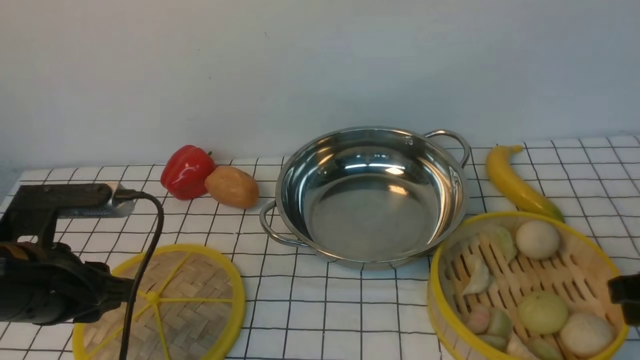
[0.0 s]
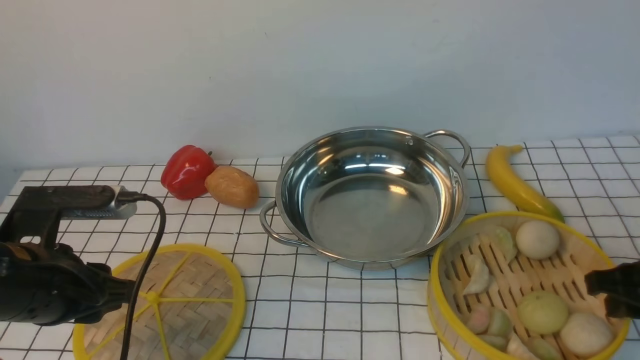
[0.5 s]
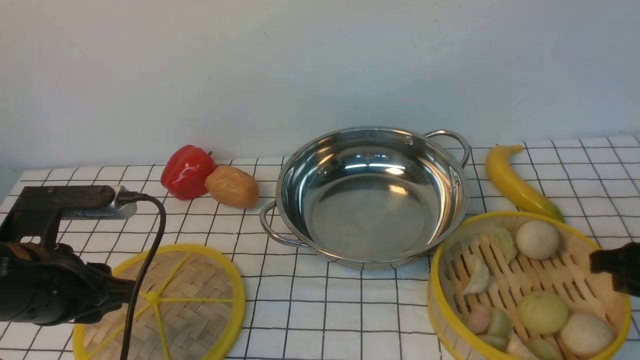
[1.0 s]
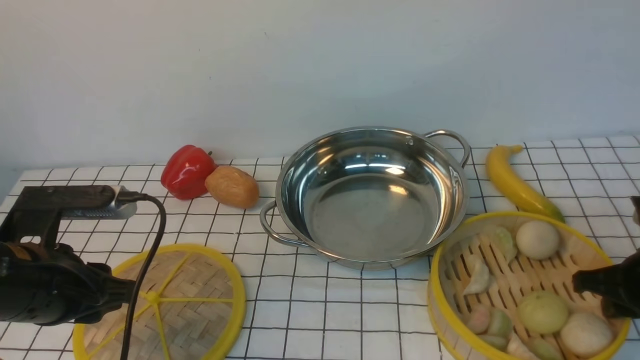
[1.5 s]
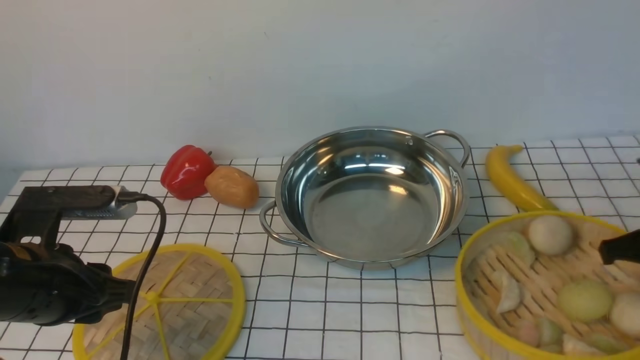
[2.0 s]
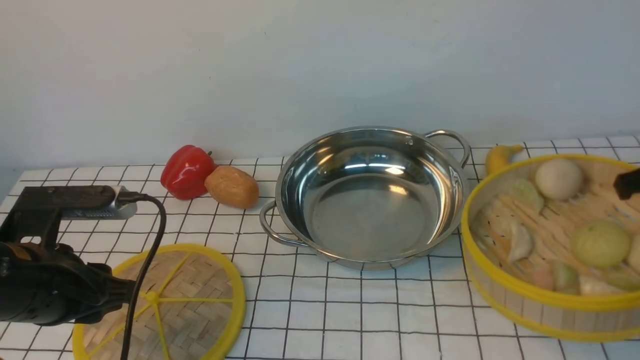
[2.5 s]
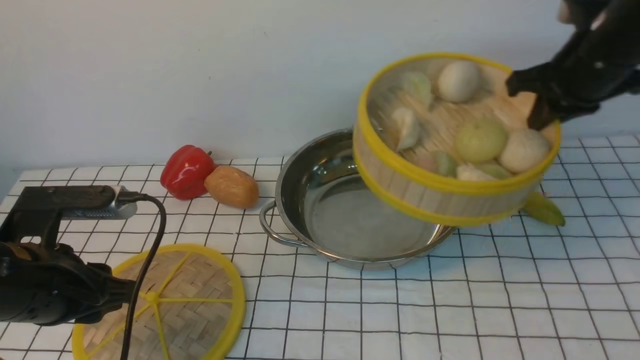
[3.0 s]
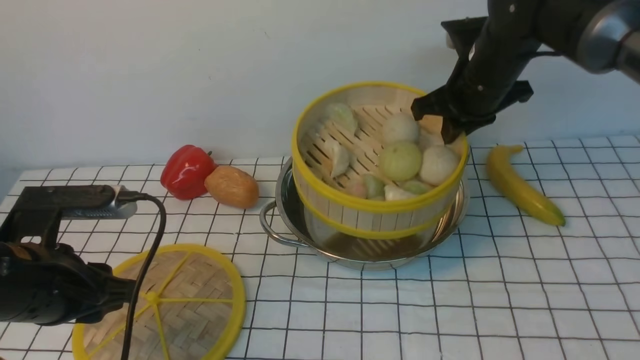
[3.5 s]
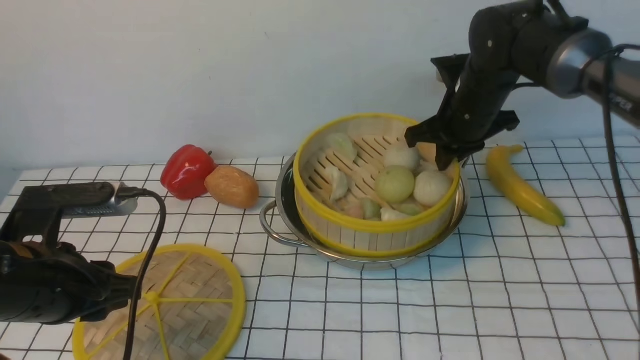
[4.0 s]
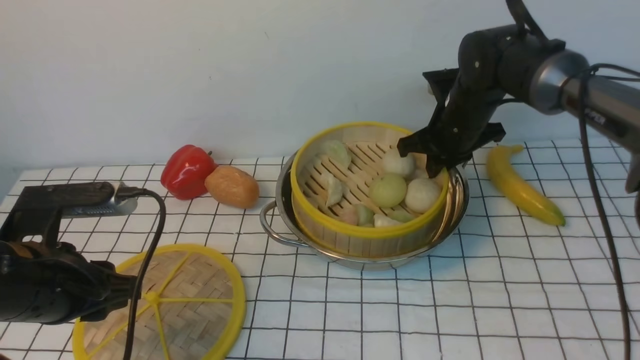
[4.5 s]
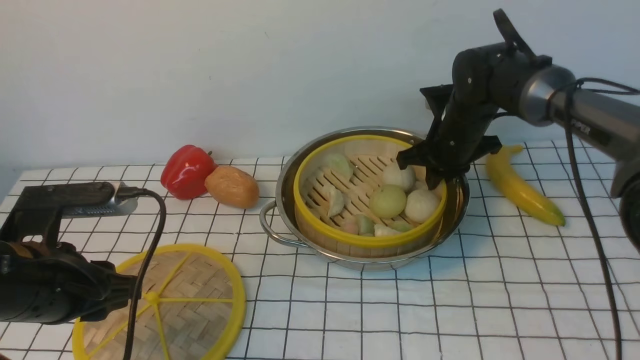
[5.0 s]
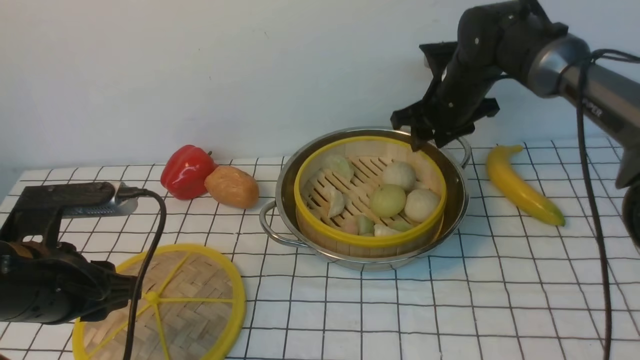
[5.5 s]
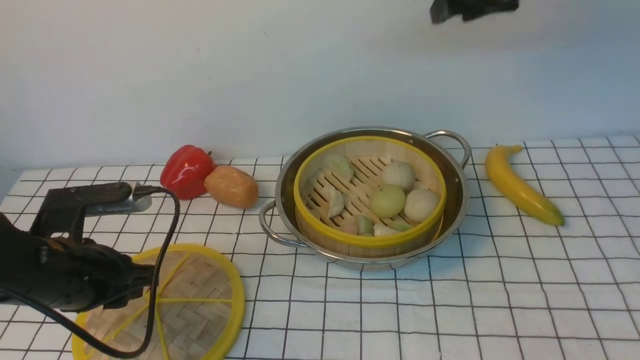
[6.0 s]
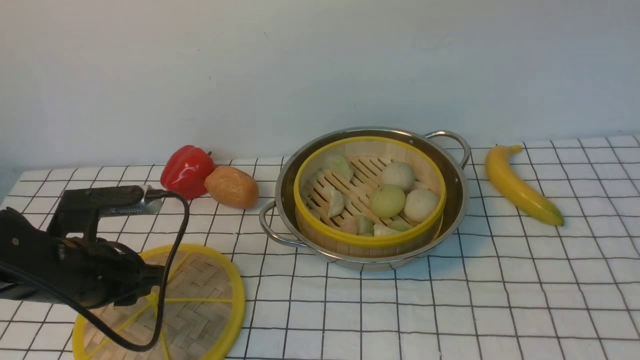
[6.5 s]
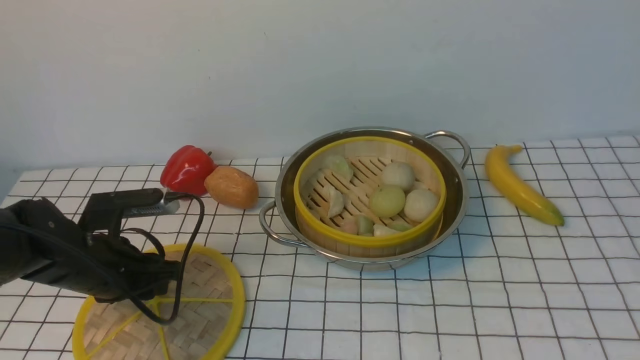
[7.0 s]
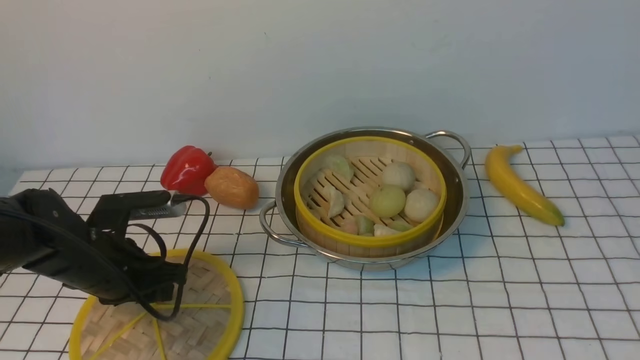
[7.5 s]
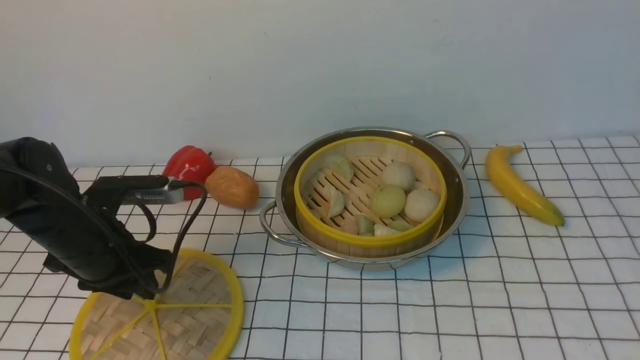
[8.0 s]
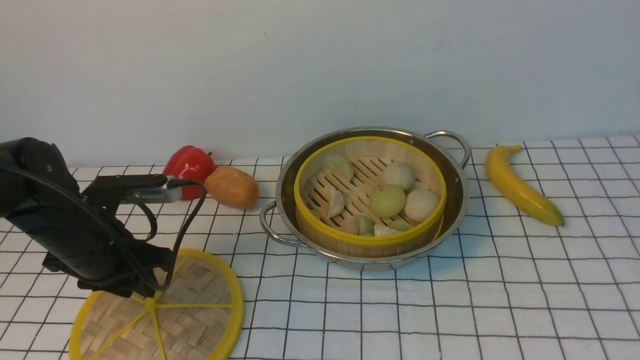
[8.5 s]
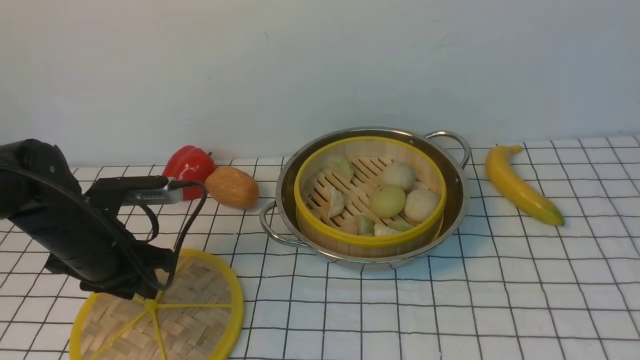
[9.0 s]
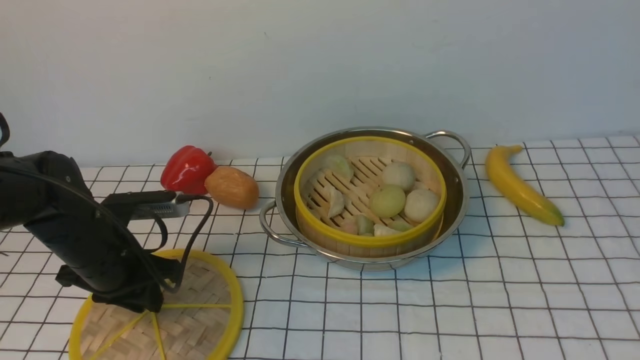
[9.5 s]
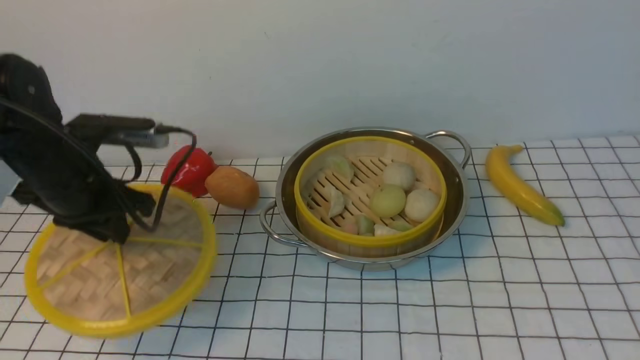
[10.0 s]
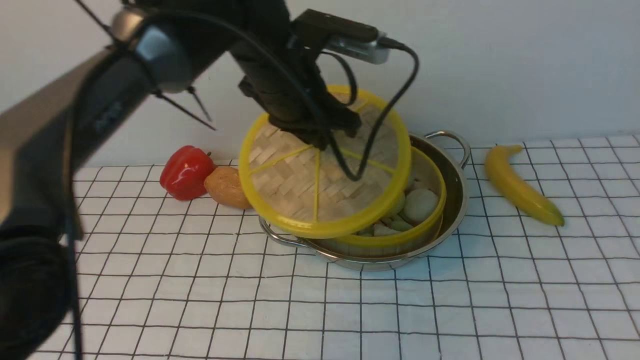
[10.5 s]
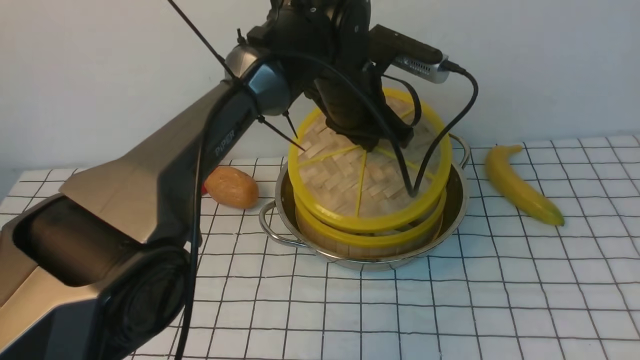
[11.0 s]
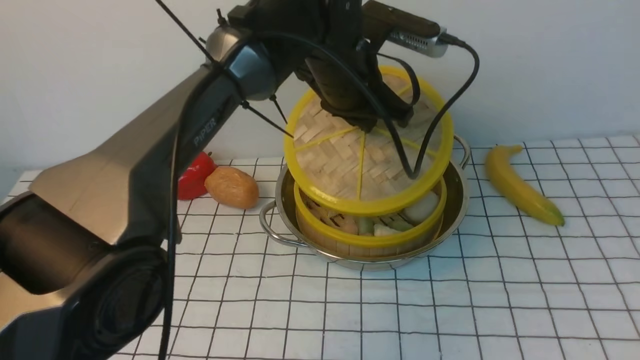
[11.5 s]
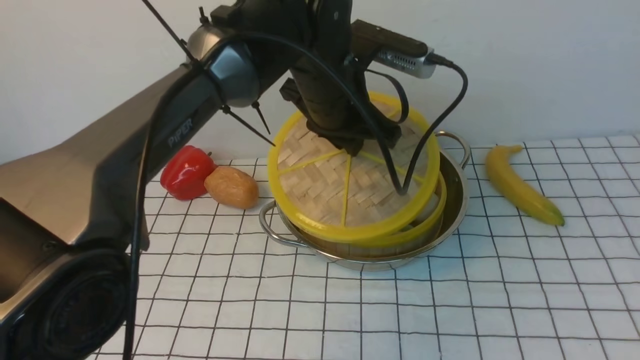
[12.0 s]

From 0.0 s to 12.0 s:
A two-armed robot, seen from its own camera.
Task of the whole recording: place the steamer in the pot on the white tablecloth, and put the lid on the steamer.
Step, from 0.0 s to 2.0 s: use the right arm to lift the steamer closest to it.
Step, from 2.5 s to 5.5 s: use the right arm to put the steamer into the iron steamer pot in the middle.
Step, from 6.0 s to 9.5 s: use the left arm to lift the lid of the steamer.
From 0.0 s to 2.0 s: The right gripper travels forward by approximately 10 cm, and closes.
From 2.0 s to 4.0 s: The right gripper heads forward and to the left, covering approximately 25 cm.
From 4.0 s to 6.0 s: The right gripper goes some 20 cm upward, and opens up.
From 6.0 s to 8.0 s: The right gripper moves backward, roughly 35 cm, and closes up, while the left gripper moves forward, some 5 cm.
From 8.0 s to 10.0 s: The left gripper shifts approximately 5 cm upward, and closes its fingers.
From 10.0 s to 12.0 s: The left gripper goes approximately 25 cm to the right.

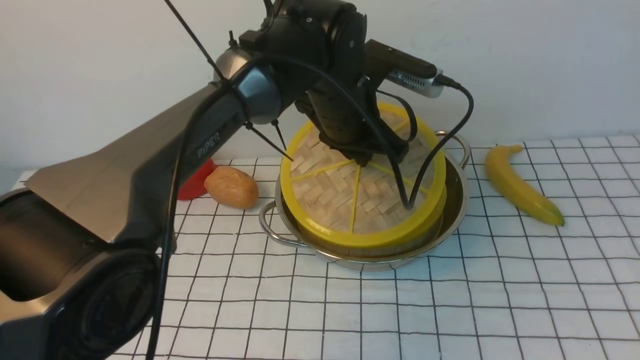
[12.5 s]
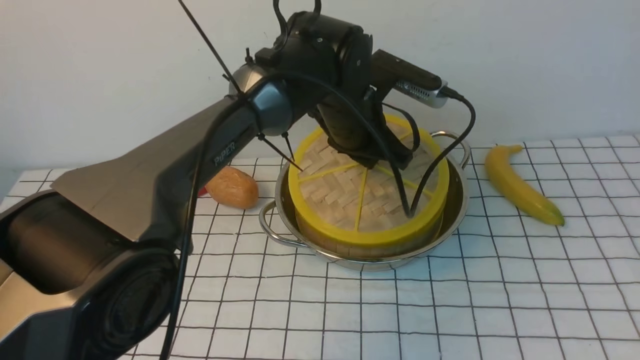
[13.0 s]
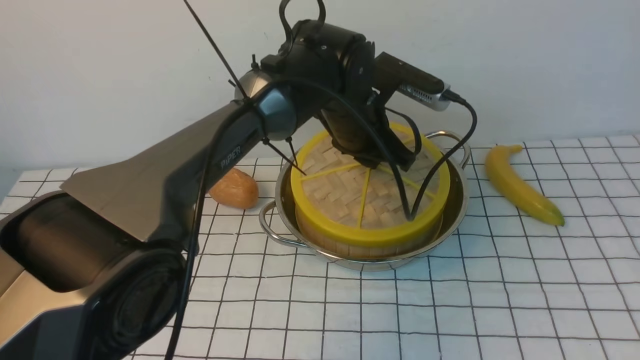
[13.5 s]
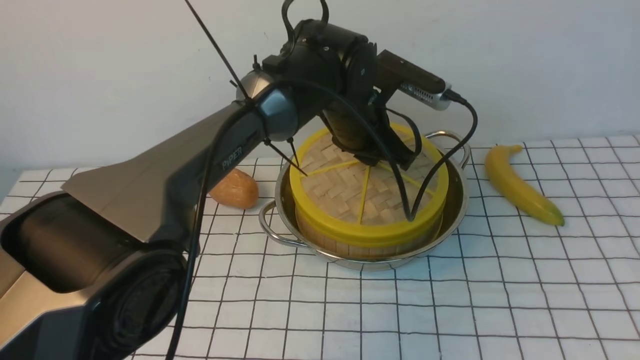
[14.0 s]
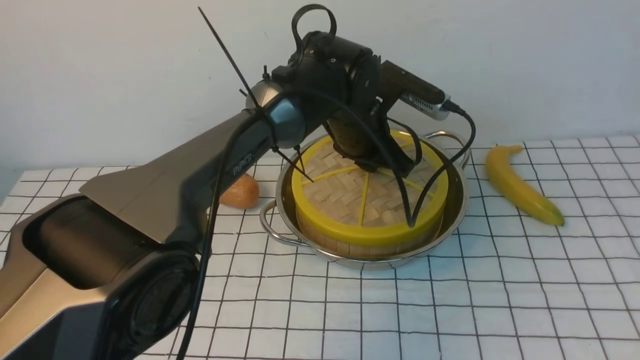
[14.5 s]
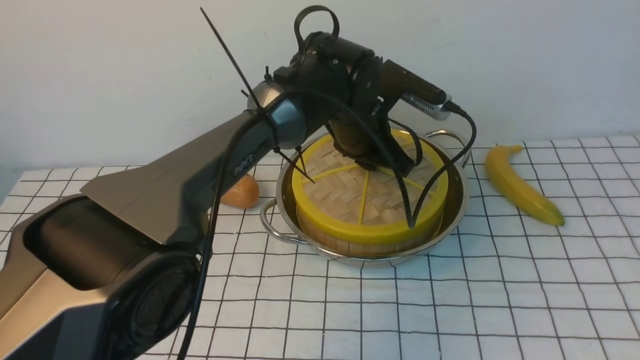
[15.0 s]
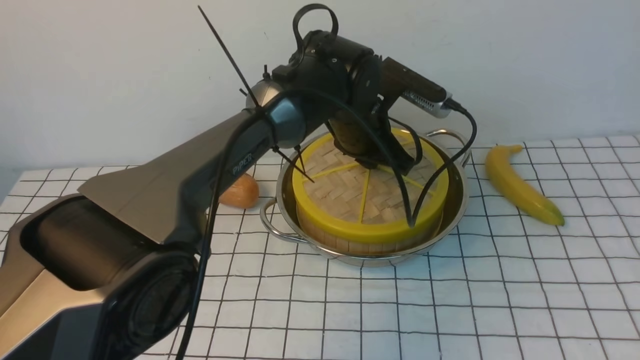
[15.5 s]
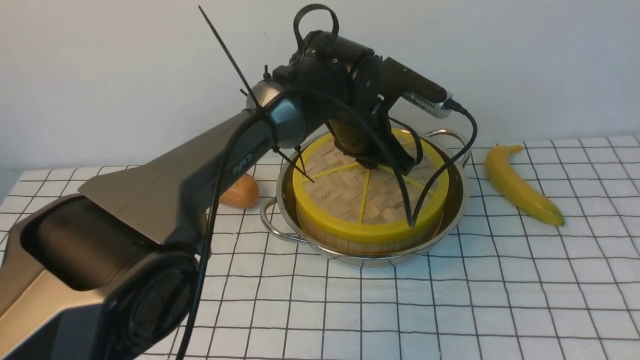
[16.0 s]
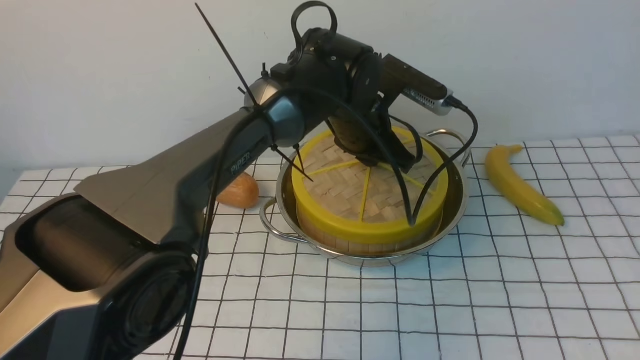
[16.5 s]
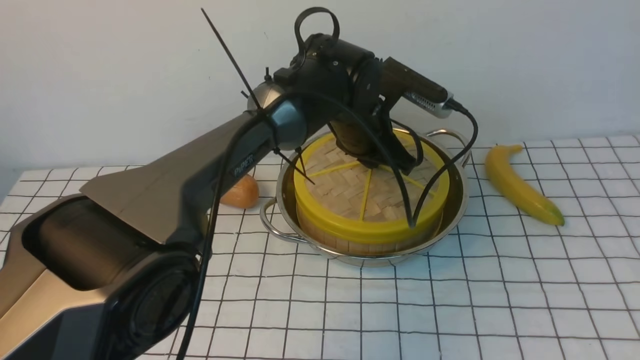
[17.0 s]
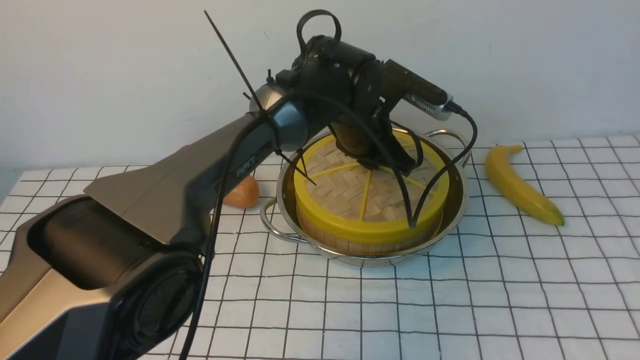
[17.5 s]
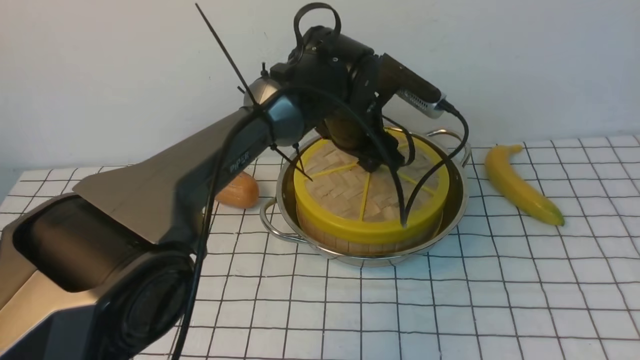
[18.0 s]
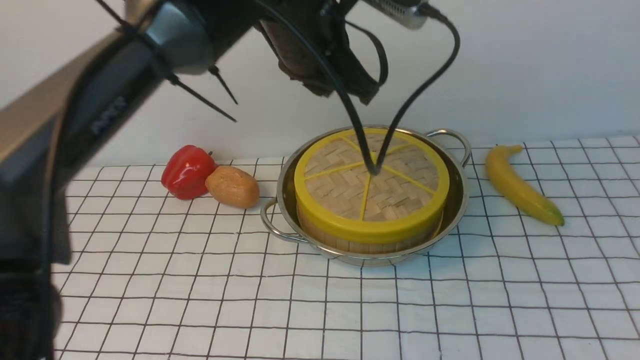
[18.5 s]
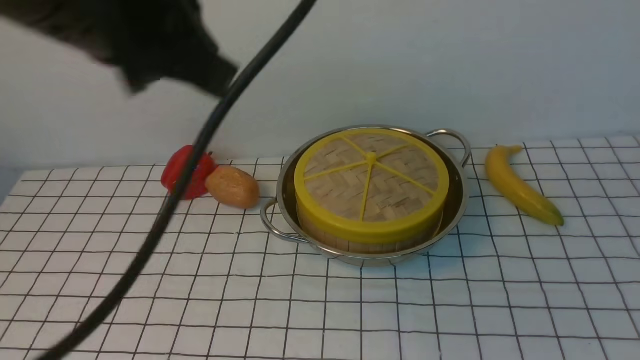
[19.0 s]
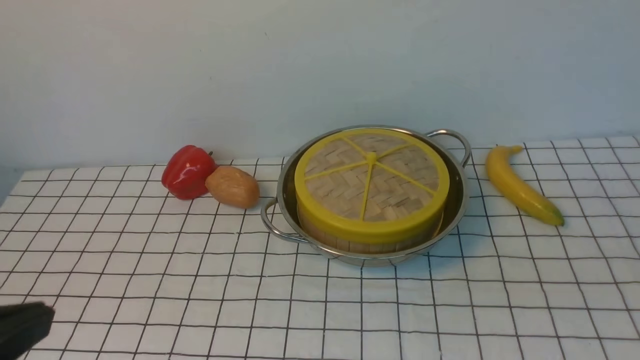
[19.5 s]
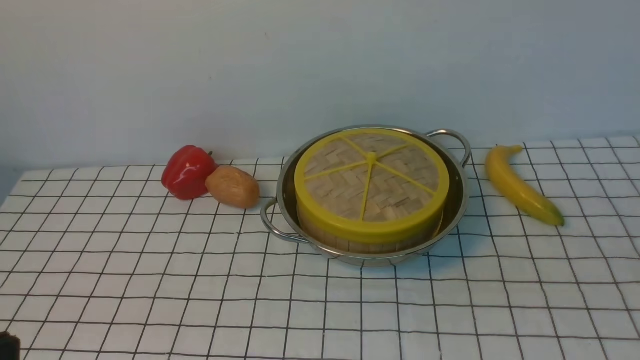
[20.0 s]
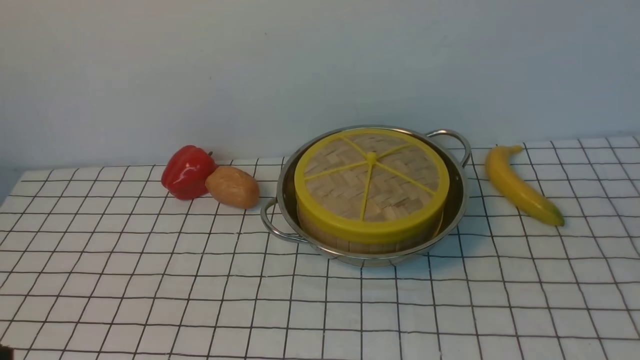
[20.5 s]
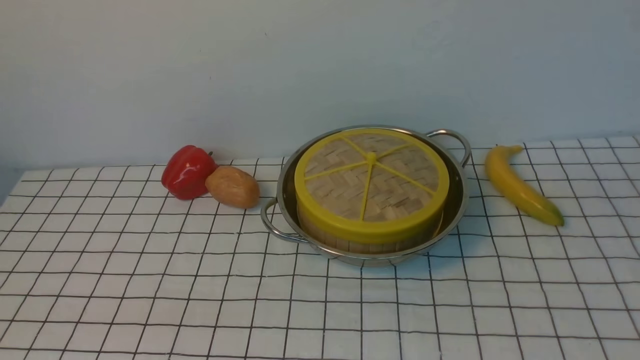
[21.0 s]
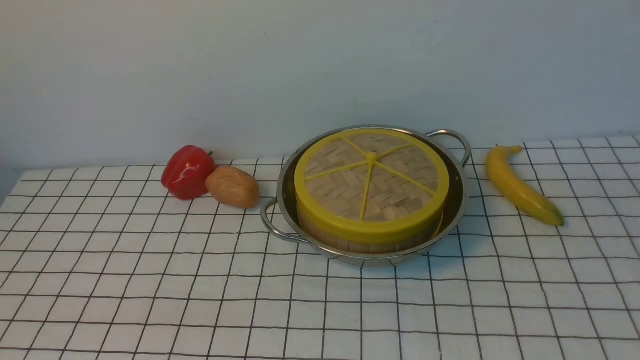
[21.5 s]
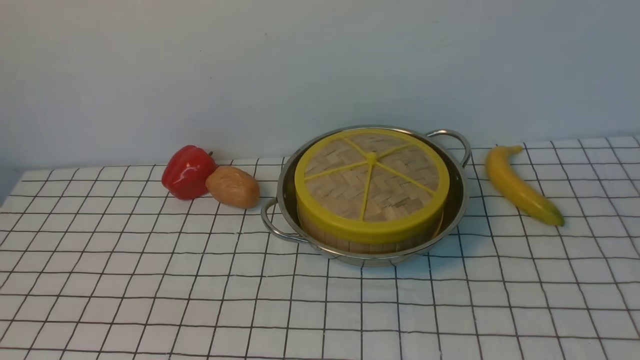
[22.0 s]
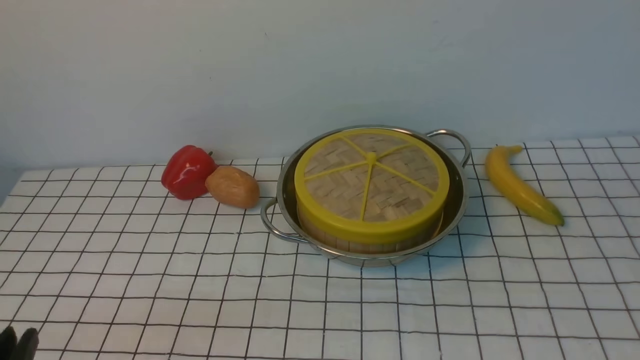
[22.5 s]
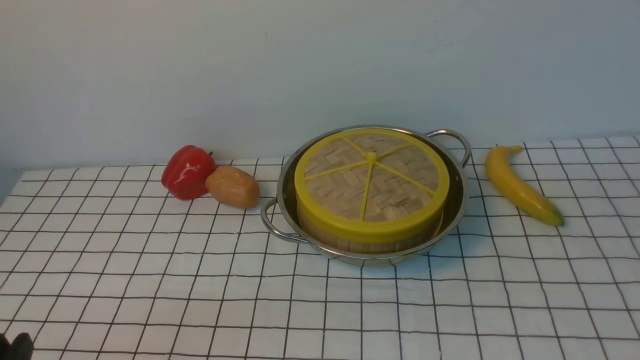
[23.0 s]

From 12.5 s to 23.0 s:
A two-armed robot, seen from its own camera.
Task of the whole recording: place the steamer in the pot on the white tablecloth, and put the lid on the steamer.
Step, from 12.5 s to 18.0 s: use the left arm to place the steamer lid on the steamer.
From 14.5 s to 16.5 s: Neither gripper changes place.
From 16.5 s to 19.0 s: The right gripper travels downward by approximately 10 cm; the left gripper moves backward, upward and to the left, about 35 cm, and closes its fingers.
From 19.0 s to 21.0 s: The left gripper travels backward, downward and to the left by roughly 25 cm; the right gripper moves downward, some 5 cm, and closes its fingers.
